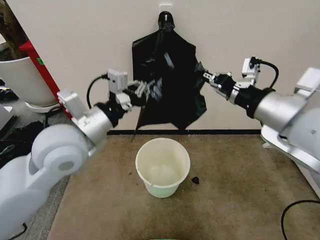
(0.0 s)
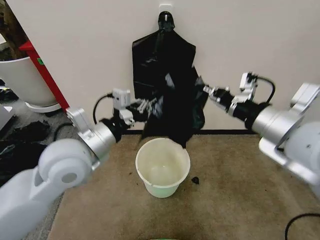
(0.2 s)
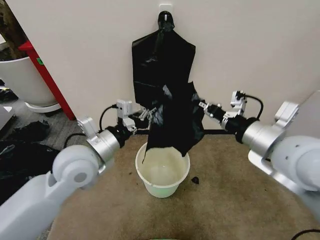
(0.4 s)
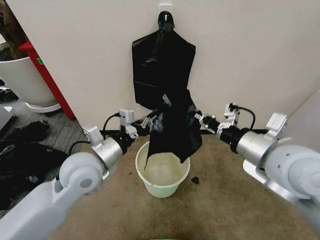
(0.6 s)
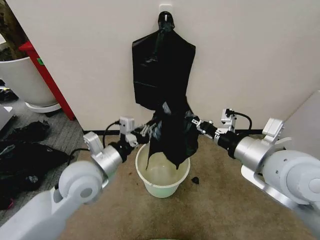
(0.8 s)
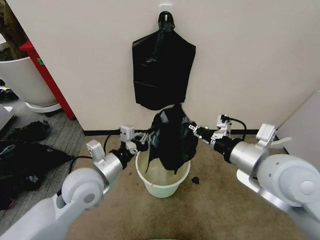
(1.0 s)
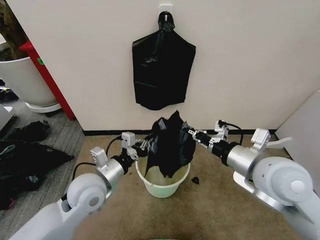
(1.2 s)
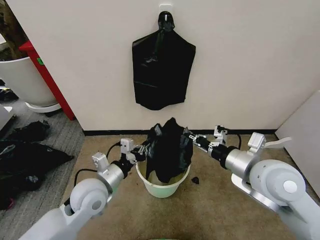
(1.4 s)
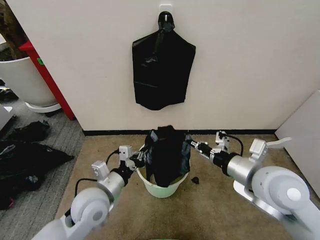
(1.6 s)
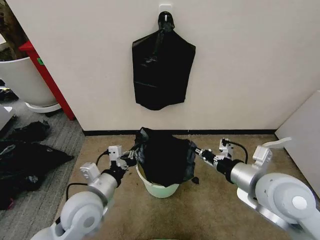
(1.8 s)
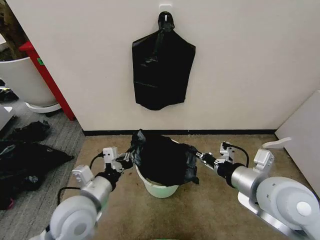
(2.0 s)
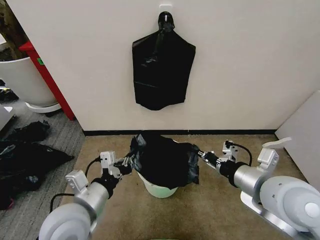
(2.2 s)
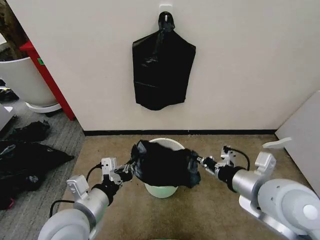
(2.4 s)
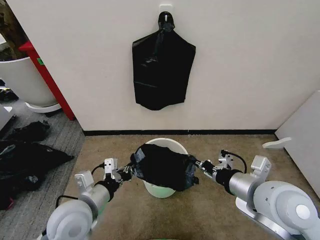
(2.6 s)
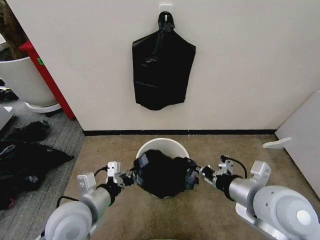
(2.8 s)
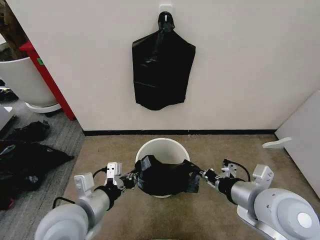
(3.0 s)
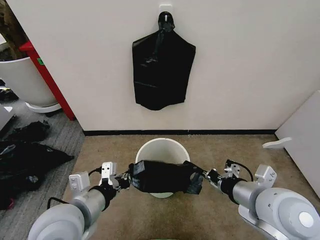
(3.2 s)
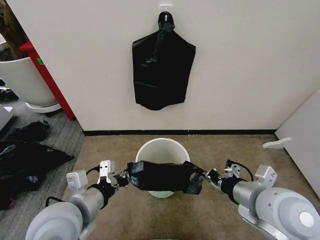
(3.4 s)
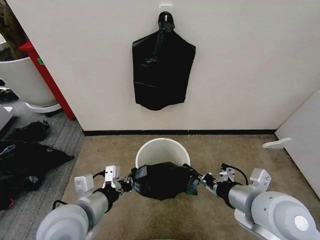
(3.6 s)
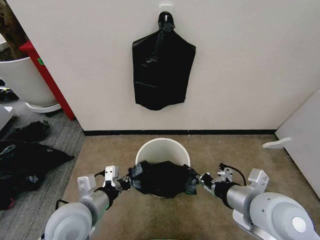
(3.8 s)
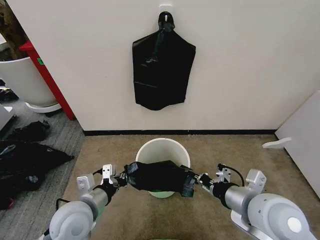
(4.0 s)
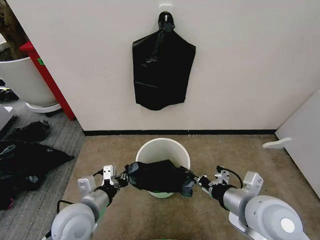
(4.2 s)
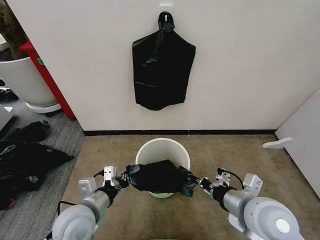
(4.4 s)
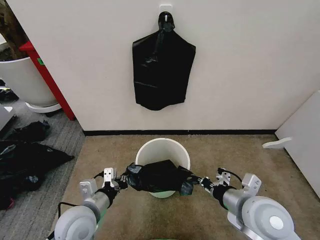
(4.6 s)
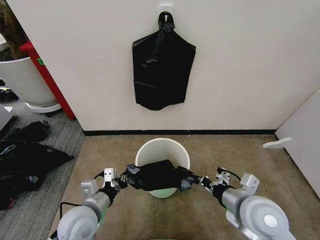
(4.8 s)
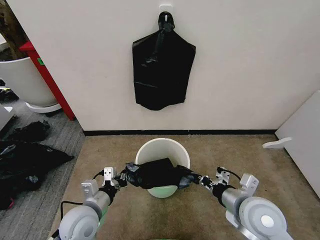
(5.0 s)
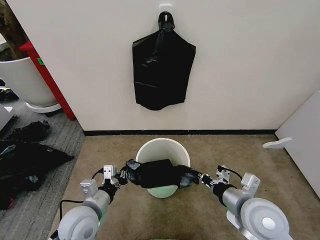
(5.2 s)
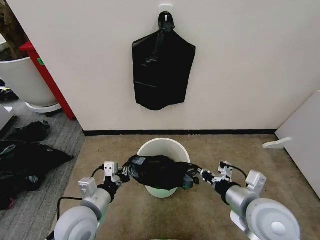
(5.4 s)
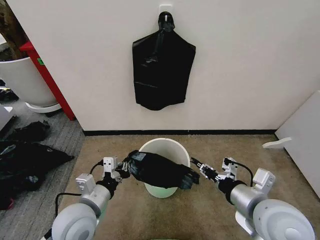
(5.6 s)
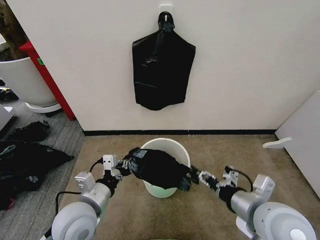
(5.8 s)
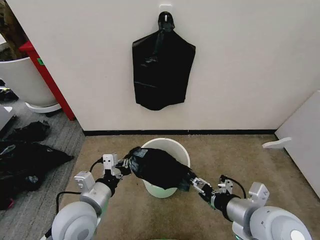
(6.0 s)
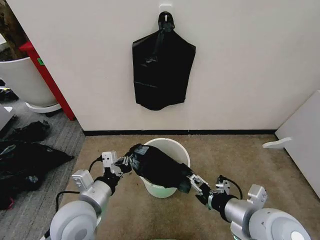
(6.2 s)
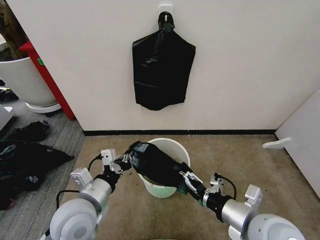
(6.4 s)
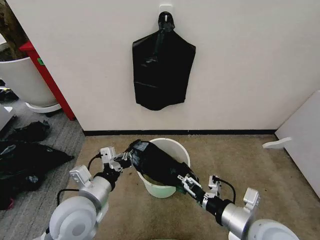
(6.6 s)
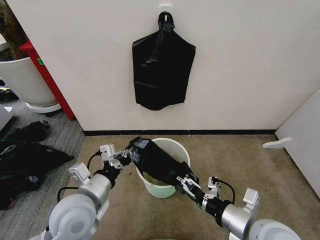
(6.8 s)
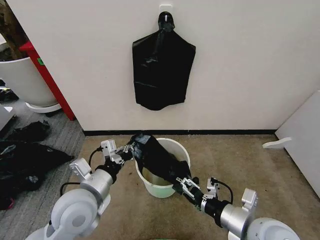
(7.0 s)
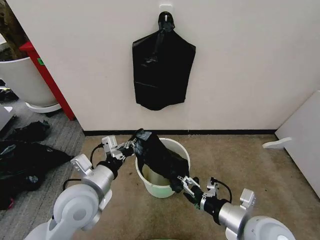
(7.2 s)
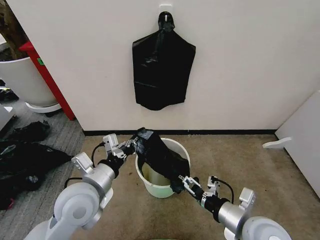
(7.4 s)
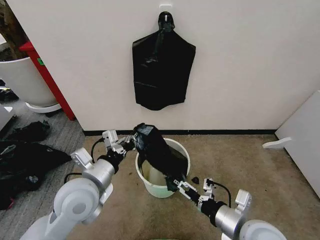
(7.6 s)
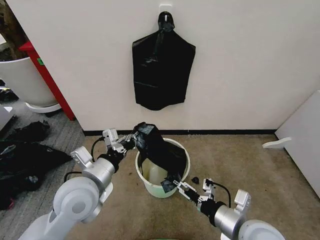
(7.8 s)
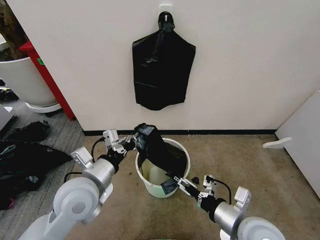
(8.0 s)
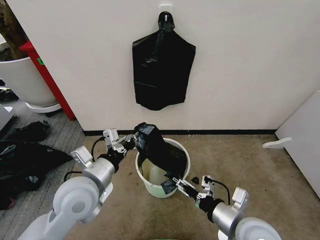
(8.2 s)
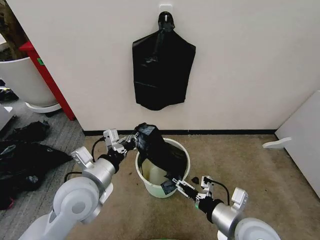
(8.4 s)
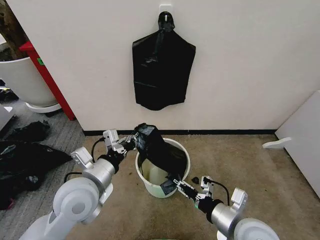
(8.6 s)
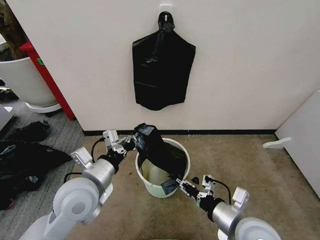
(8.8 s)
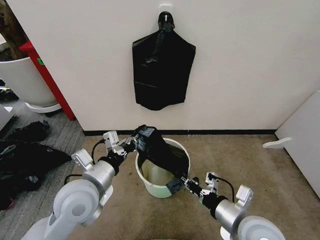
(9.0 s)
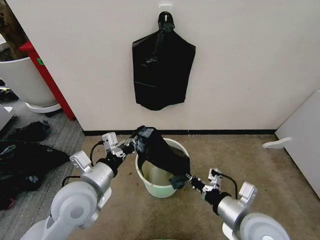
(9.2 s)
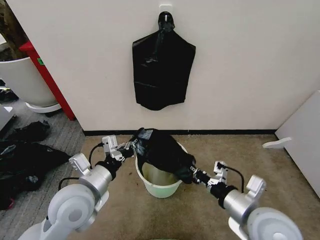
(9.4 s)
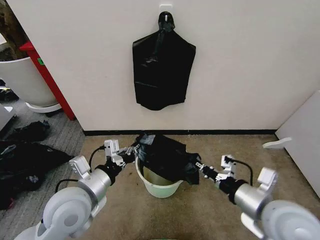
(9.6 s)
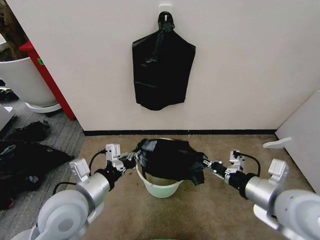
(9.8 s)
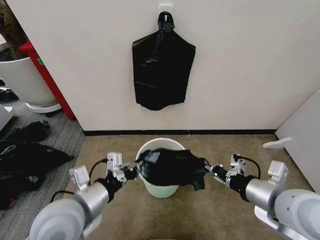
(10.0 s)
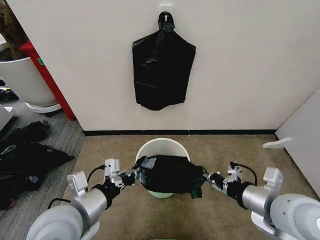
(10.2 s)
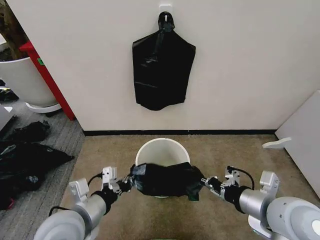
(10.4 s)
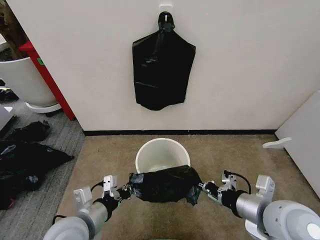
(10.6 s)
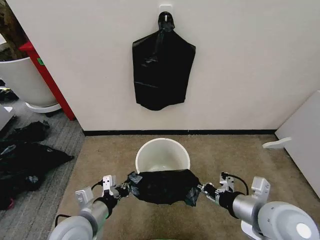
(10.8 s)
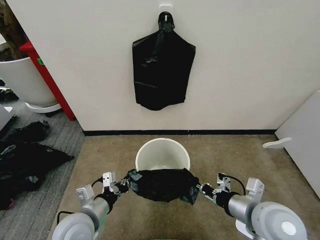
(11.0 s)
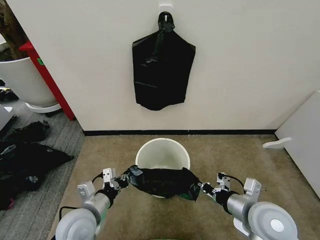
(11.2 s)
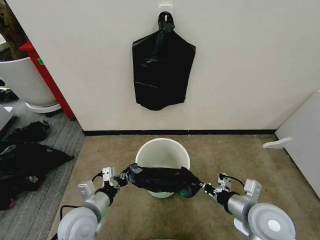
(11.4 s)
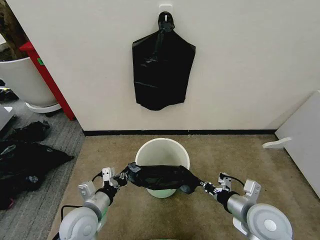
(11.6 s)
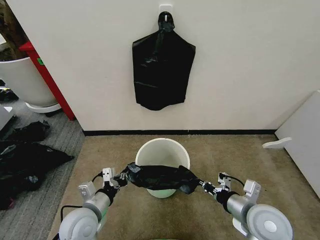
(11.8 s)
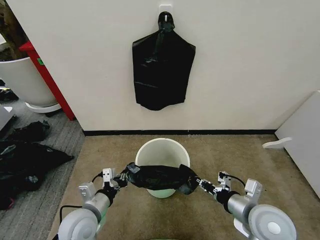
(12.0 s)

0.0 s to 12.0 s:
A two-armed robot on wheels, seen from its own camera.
Task of the whole recording: Place the garbage bag over the trash bin.
0.0 to 1.6 s: Both grippers move downward, about 15 cm.
1.6 to 3.0 s: The left gripper travels backward and upward by about 10 cm.
3.0 to 4.4 s: The left gripper shifts approximately 5 cm downward.
4.4 to 6.0 s: The right gripper opens its fingers.
6.0 to 7.6 s: The left gripper travels upward by about 5 cm. Meanwhile the right gripper is displaced downward by roughly 5 cm.
7.6 to 9.0 s: The right gripper closes.
9.0 to 10.4 s: The left gripper travels backward by roughly 5 cm. Meanwhile the right gripper shifts about 10 cm upward.
10.4 to 12.0 s: The grippers both shift downward by approximately 10 cm.

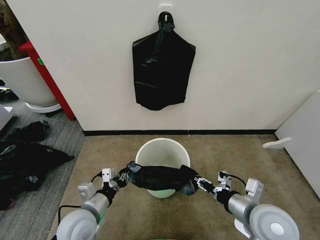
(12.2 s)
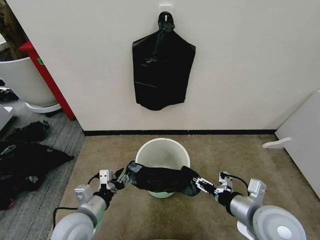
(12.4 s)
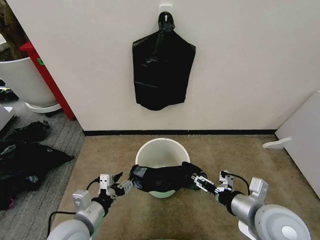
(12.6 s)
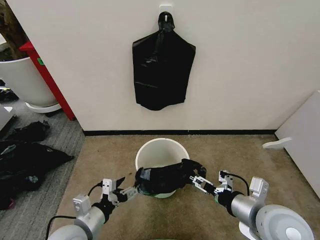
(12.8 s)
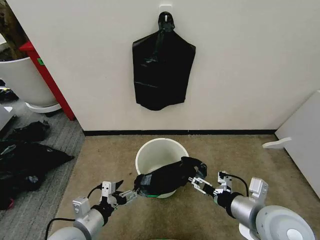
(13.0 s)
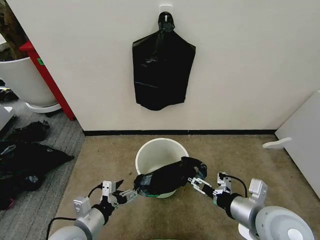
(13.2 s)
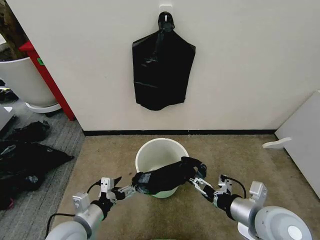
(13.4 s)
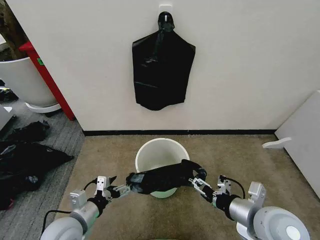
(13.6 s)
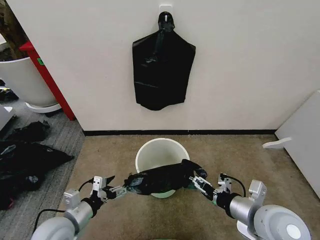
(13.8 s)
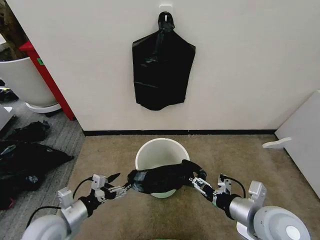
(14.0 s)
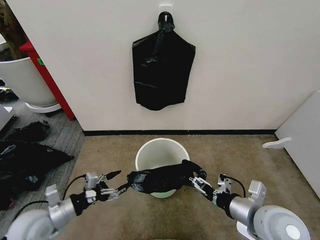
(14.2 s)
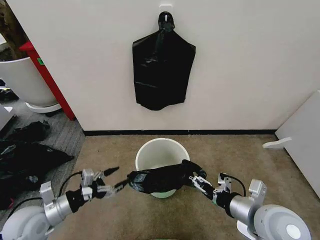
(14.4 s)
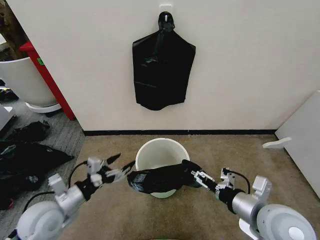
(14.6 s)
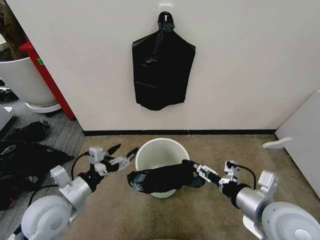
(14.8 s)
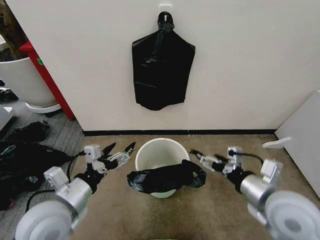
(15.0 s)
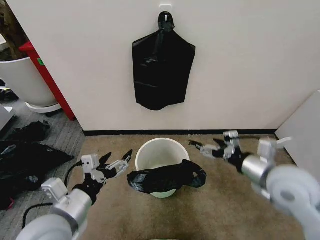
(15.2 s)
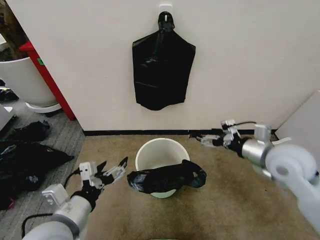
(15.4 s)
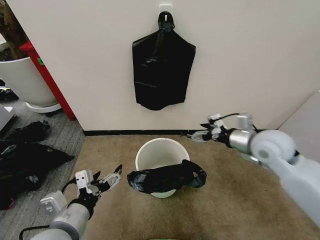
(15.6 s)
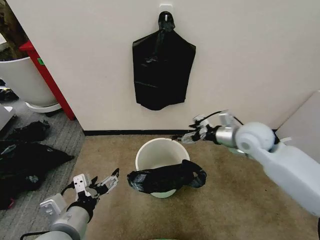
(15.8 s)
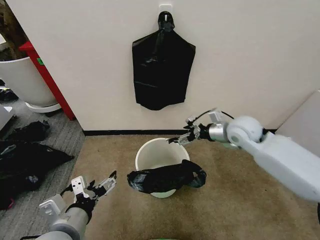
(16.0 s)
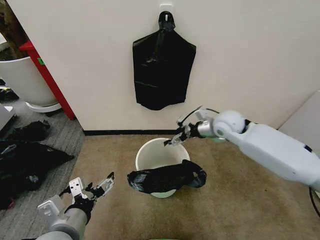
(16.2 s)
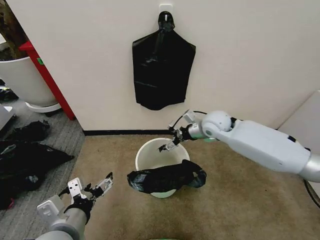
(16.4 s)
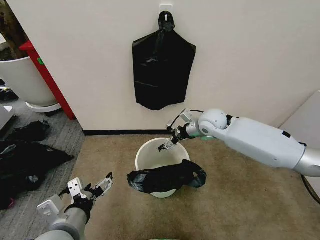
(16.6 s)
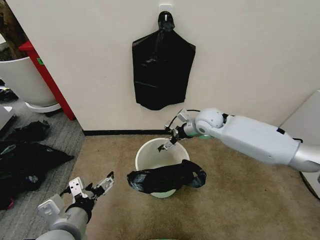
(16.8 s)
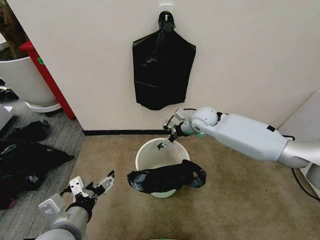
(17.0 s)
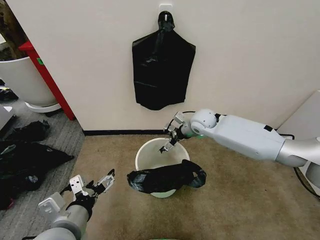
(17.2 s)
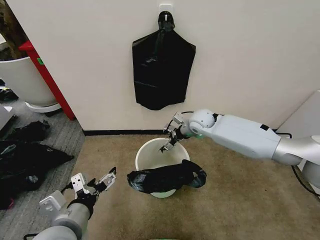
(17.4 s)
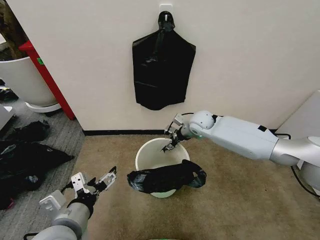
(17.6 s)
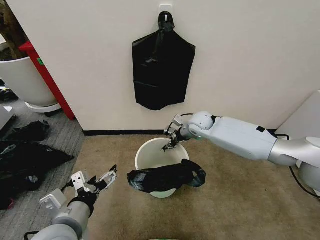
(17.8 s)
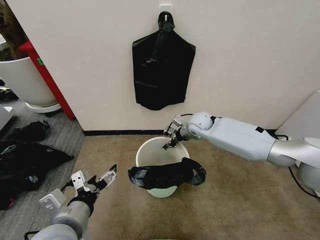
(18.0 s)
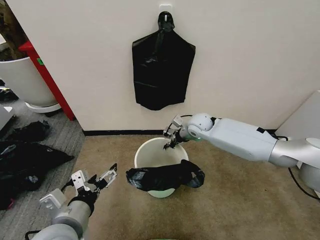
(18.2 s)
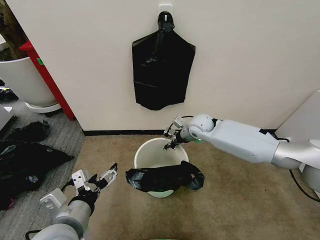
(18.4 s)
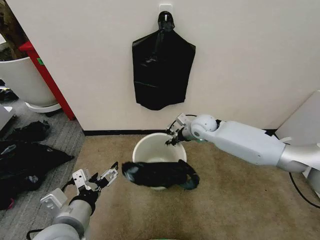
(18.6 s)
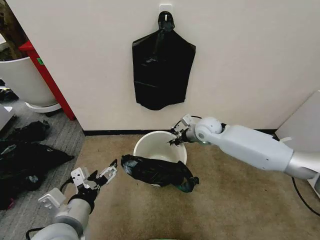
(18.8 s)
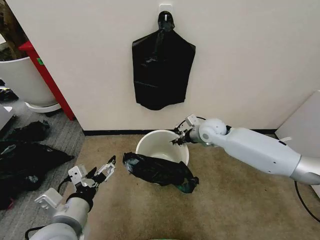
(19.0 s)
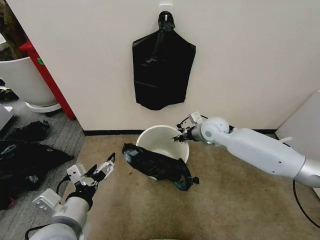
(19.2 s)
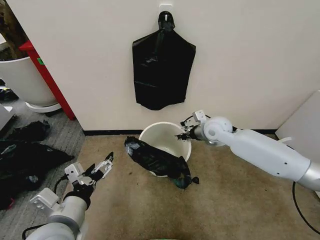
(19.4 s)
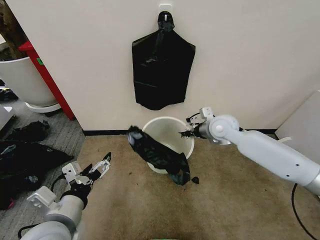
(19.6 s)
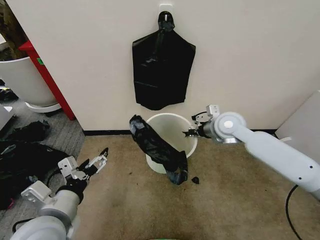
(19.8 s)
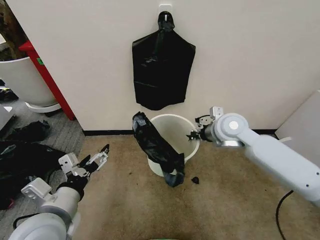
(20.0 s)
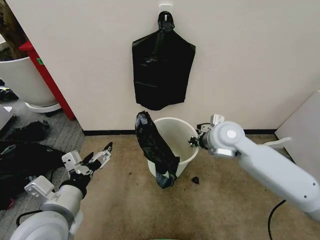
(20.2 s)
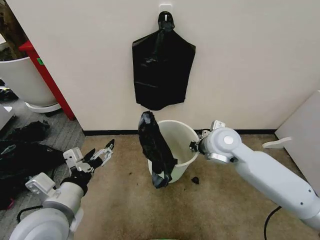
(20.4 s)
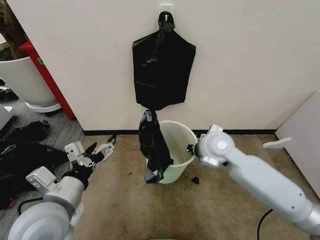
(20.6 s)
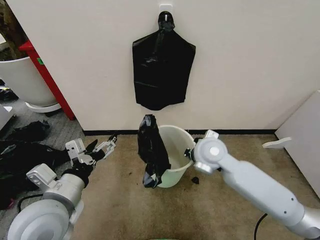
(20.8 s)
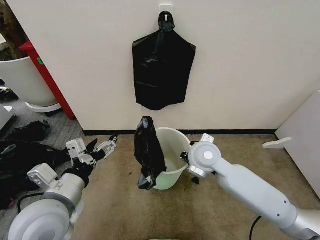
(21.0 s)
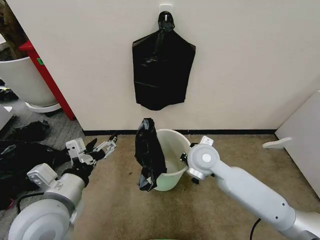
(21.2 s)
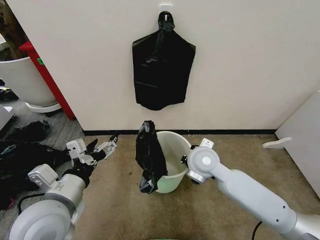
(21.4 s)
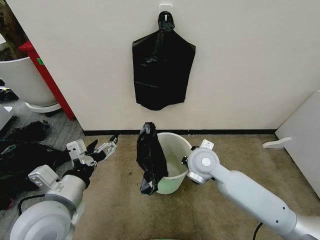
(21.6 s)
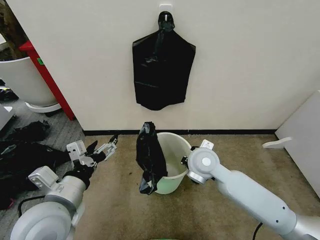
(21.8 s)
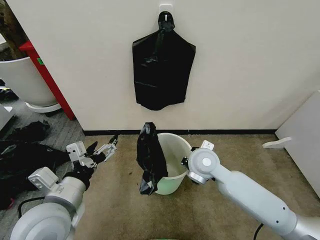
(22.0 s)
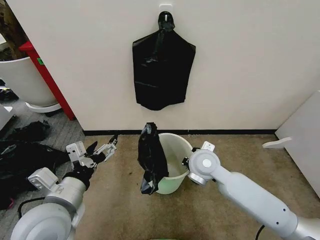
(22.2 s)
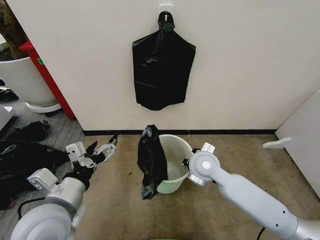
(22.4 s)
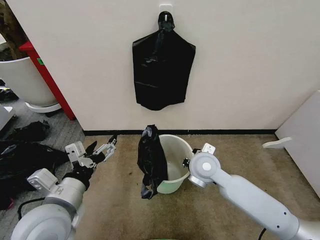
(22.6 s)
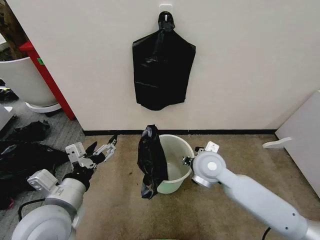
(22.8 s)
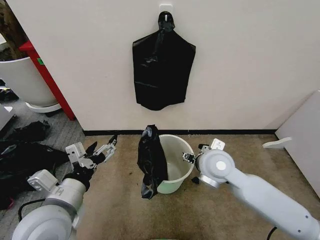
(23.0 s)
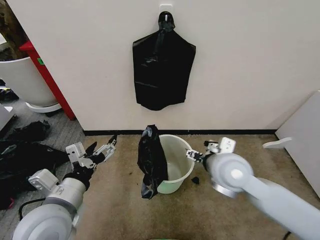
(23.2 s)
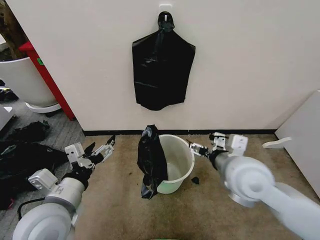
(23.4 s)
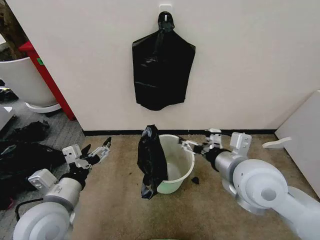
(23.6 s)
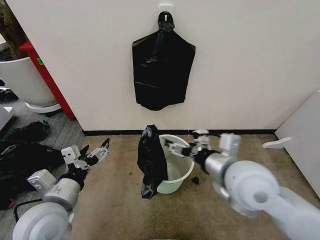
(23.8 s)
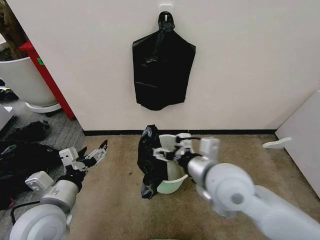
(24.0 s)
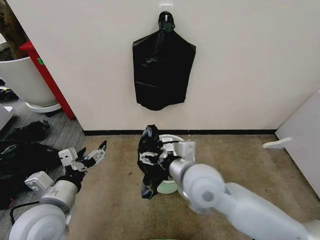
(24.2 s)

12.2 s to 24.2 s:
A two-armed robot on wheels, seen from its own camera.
Task of the whole recording: Place the garbage bag over the trash bin.
12.2 to 13.8 s: The right gripper opens, while the left gripper is displaced to the left by approximately 5 cm, and opens up.
13.8 to 15.2 s: The left gripper shifts about 10 cm upward; the right gripper goes about 5 cm forward.
15.2 to 16.6 s: The right gripper moves forward and to the left, about 30 cm.
16.6 to 18.2 s: The right gripper heads downward, covering approximately 5 cm, and closes up.
18.2 to 19.8 s: The right gripper goes roughly 15 cm backward, upward and to the right.
19.8 to 21.2 s: The right gripper travels backward and to the left by some 15 cm.
21.2 to 22.6 s: The right gripper opens its fingers.
22.6 to 24.2 s: The right gripper is displaced backward and upward by some 10 cm, and opens.
